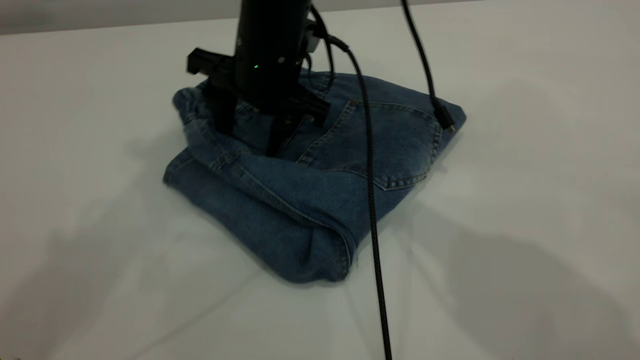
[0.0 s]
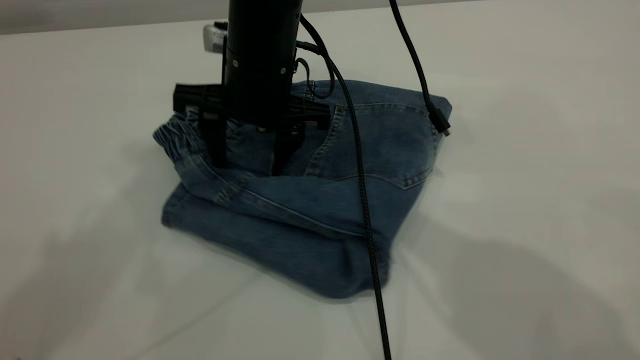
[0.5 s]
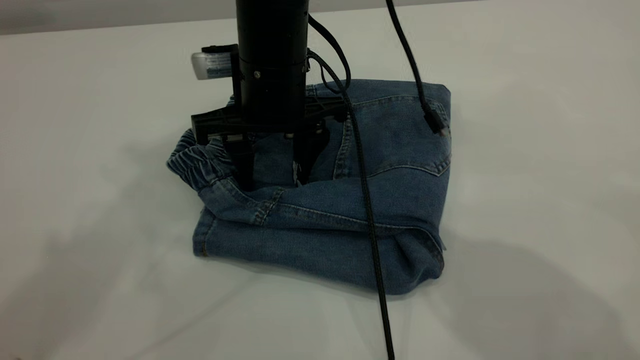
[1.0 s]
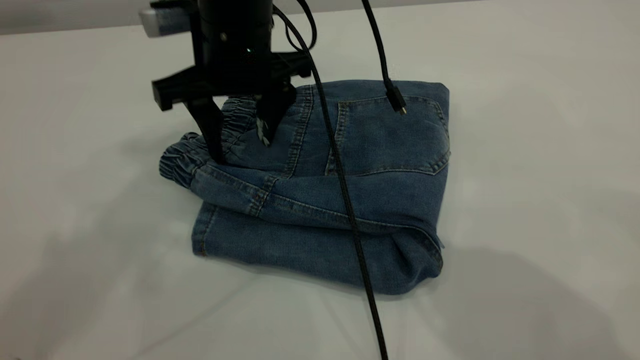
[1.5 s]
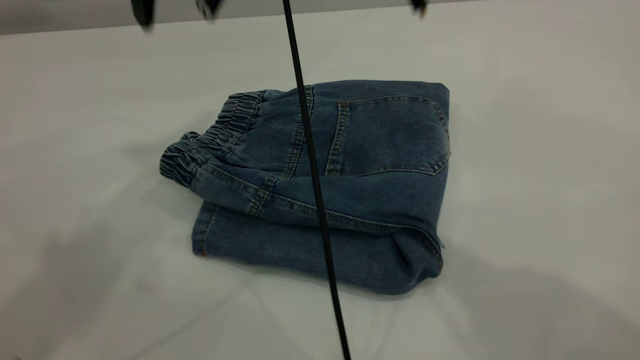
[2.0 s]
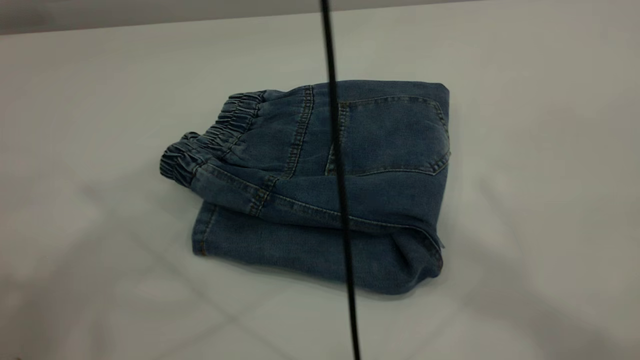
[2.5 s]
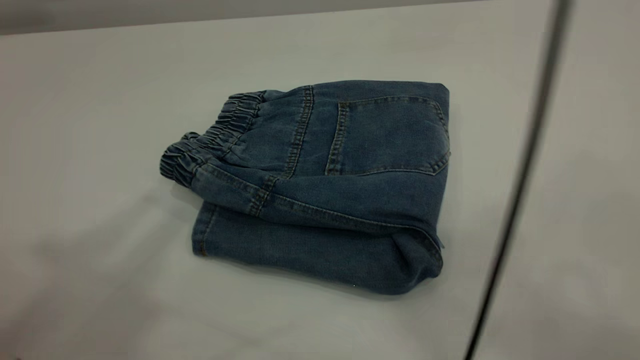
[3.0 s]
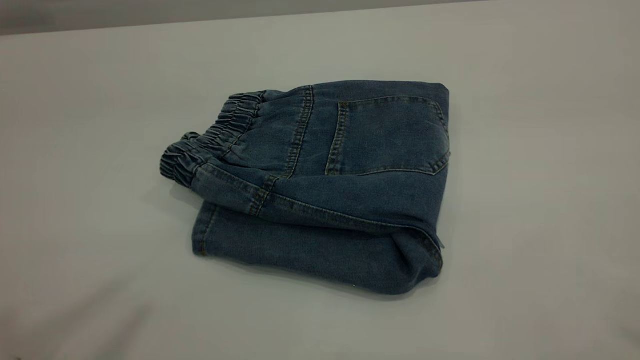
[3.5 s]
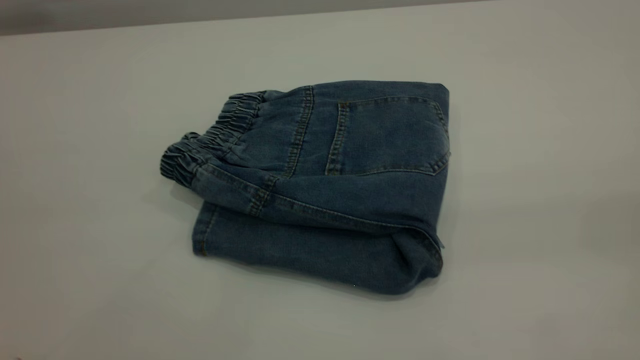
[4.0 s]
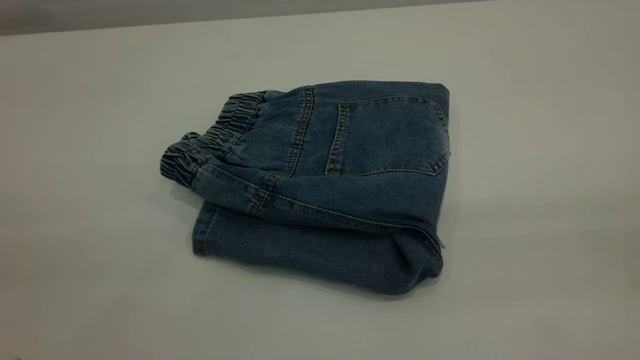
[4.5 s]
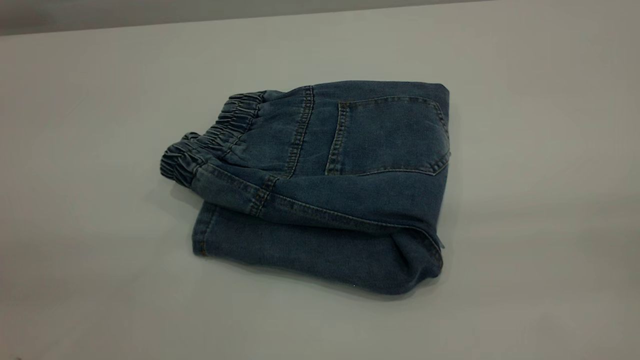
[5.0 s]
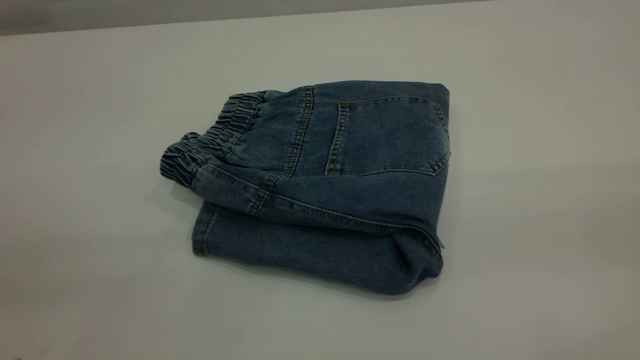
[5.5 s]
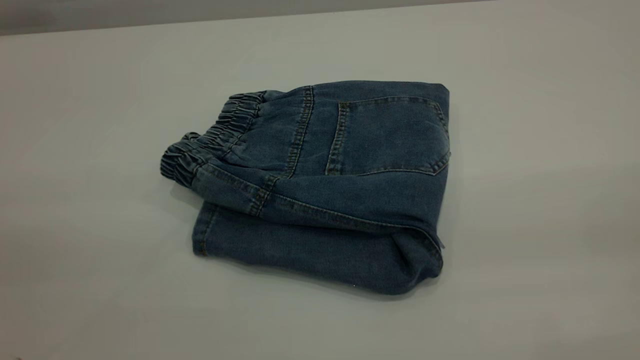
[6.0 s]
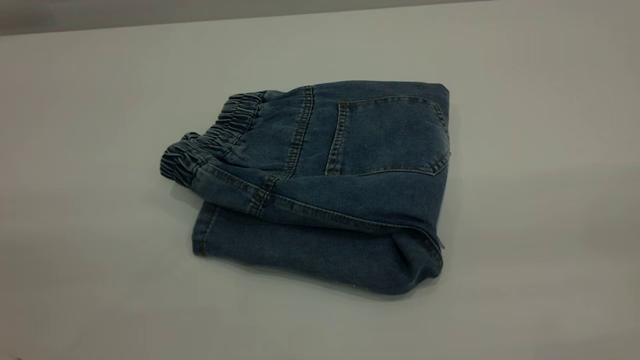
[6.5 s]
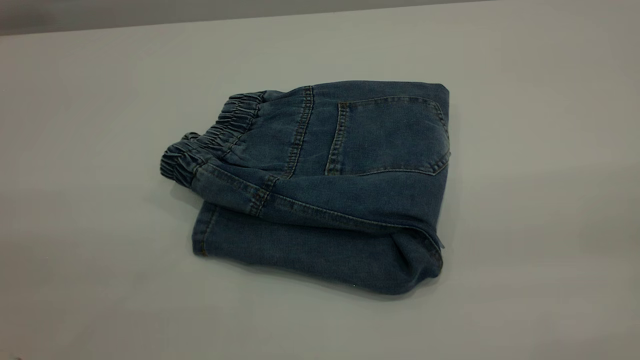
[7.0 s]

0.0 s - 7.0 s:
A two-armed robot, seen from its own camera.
0.0 s - 2.0 s: The right gripper moves upward, approximately 20 cm.
2.0 s - 3.5 s: The right gripper goes about 50 cm to the right, backward and upward. The left gripper heads backward, covering approximately 20 cm.

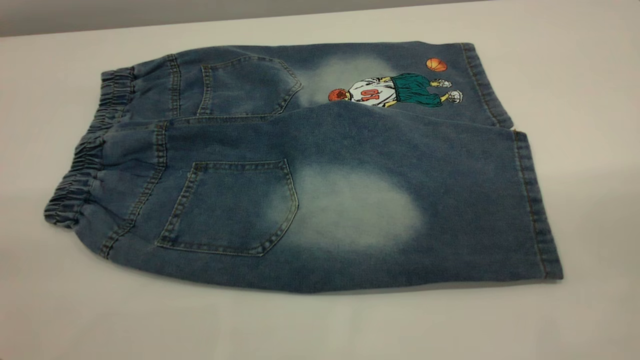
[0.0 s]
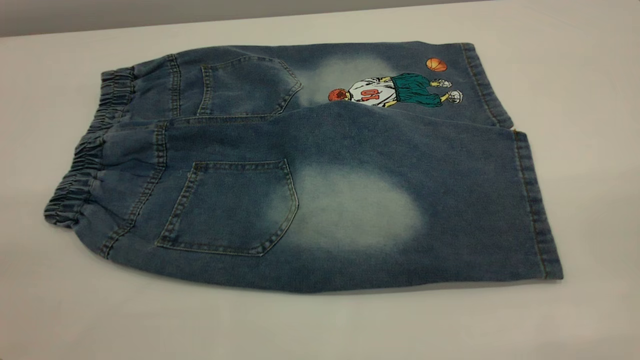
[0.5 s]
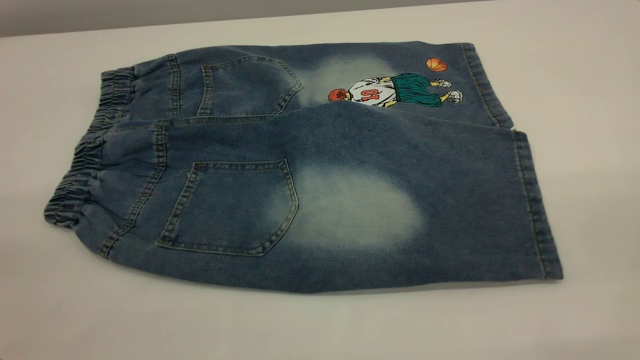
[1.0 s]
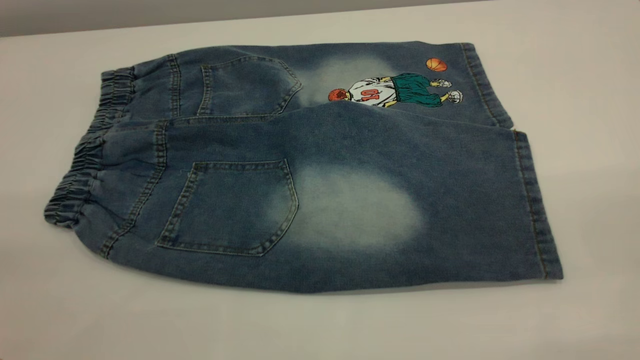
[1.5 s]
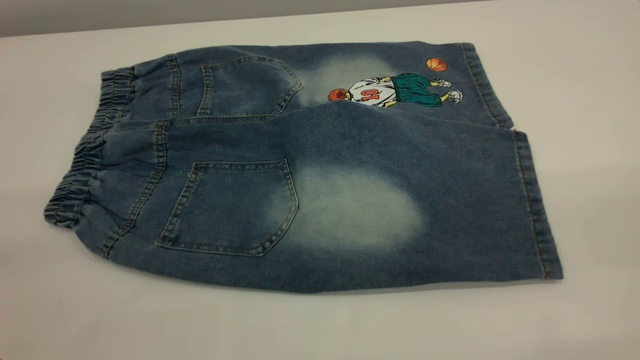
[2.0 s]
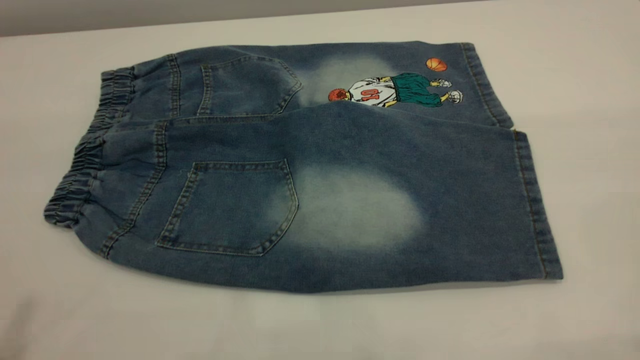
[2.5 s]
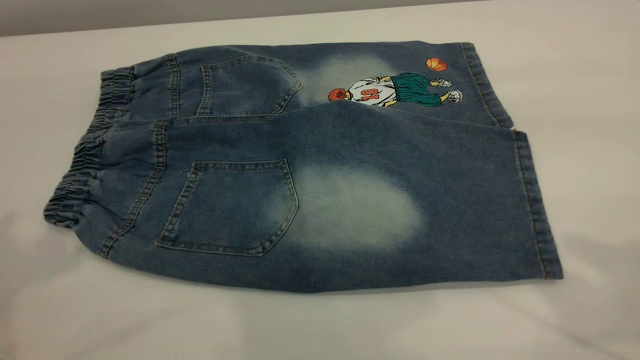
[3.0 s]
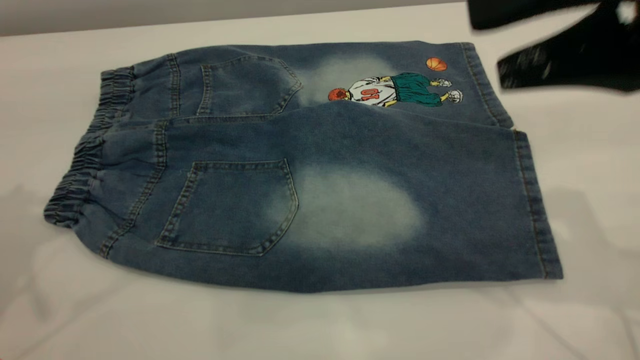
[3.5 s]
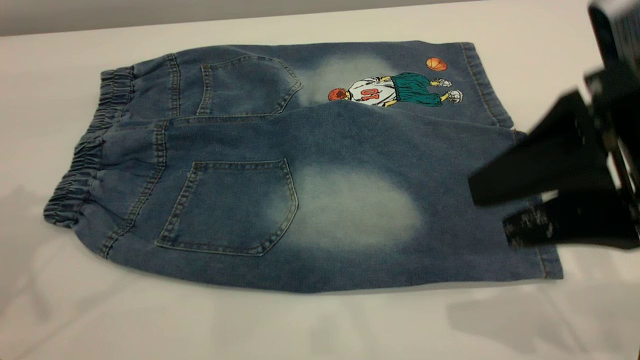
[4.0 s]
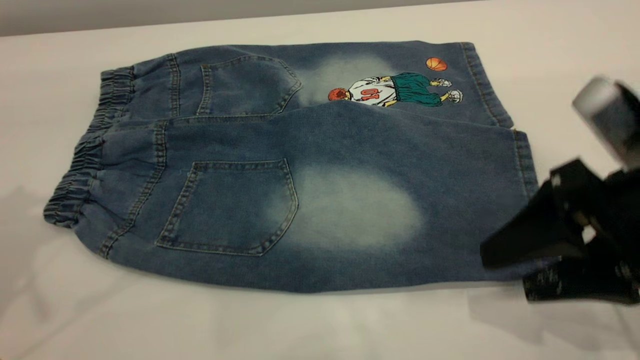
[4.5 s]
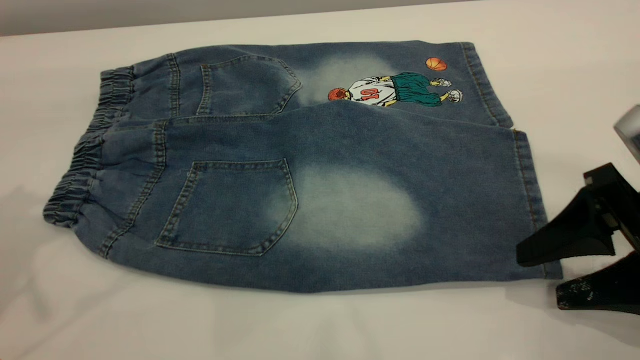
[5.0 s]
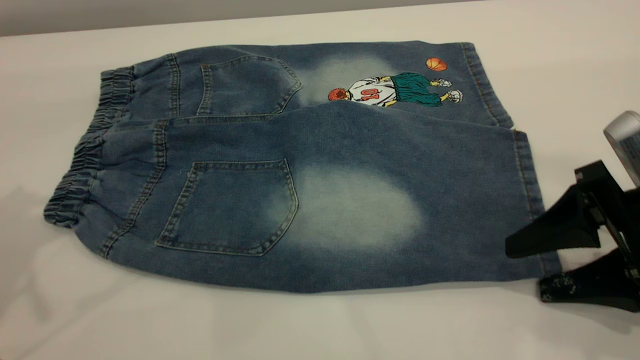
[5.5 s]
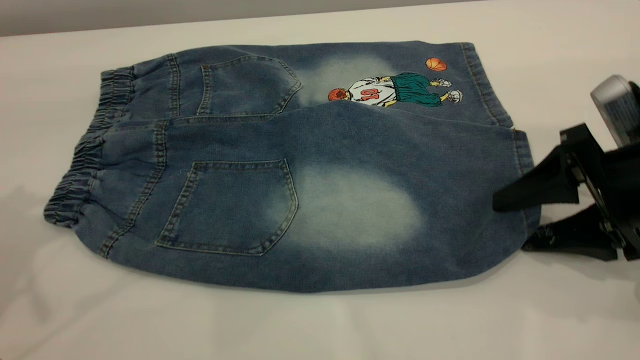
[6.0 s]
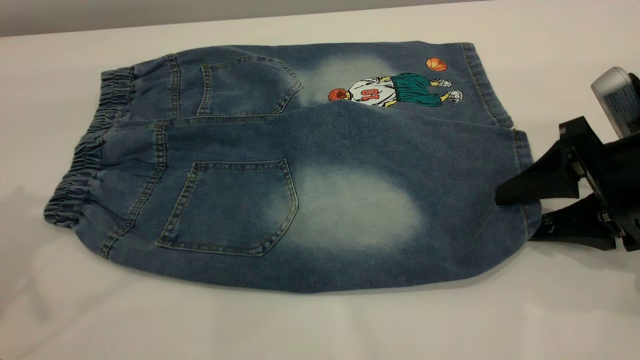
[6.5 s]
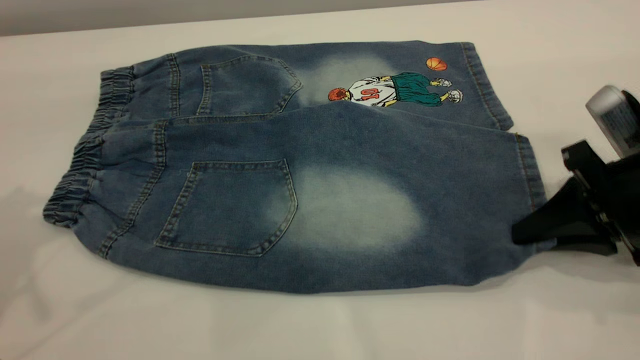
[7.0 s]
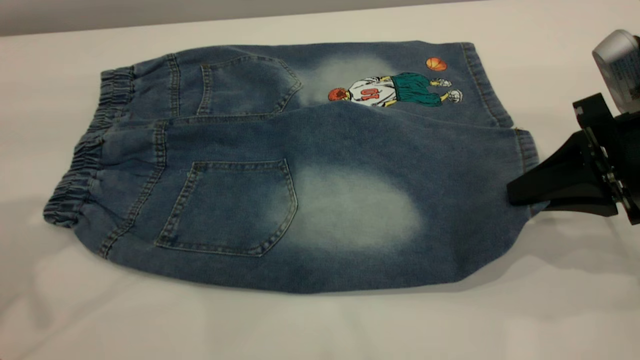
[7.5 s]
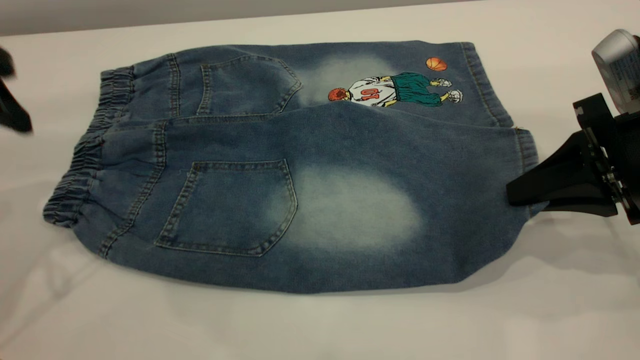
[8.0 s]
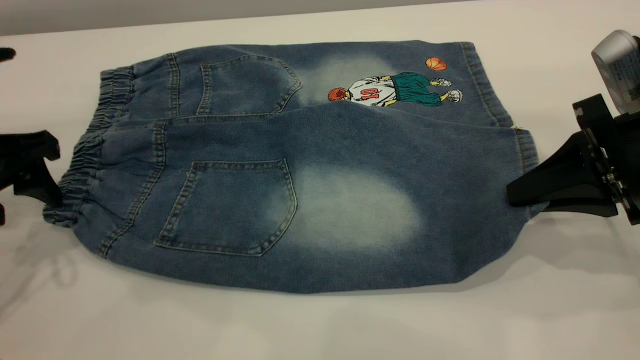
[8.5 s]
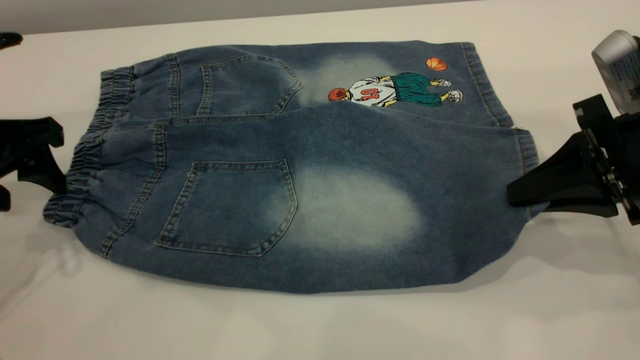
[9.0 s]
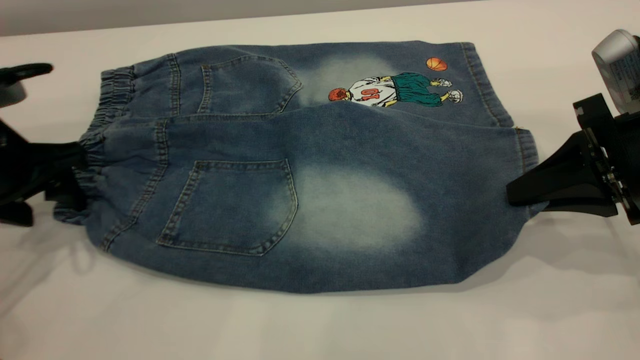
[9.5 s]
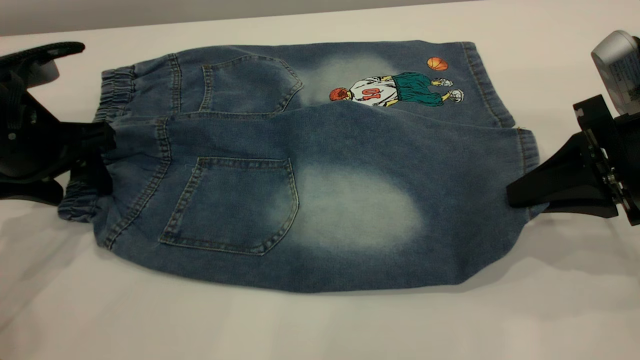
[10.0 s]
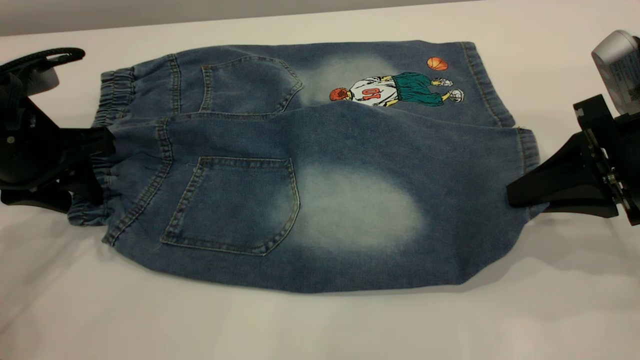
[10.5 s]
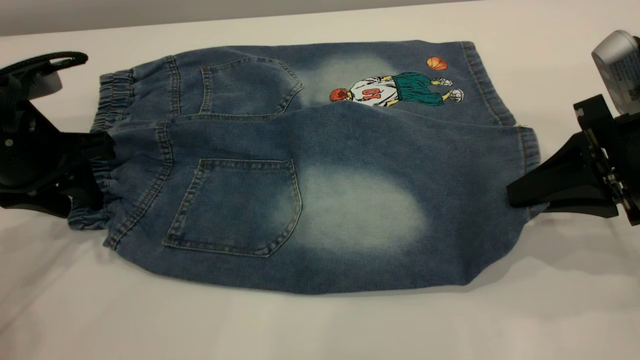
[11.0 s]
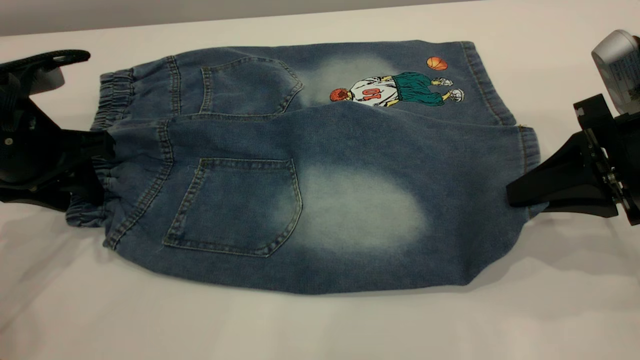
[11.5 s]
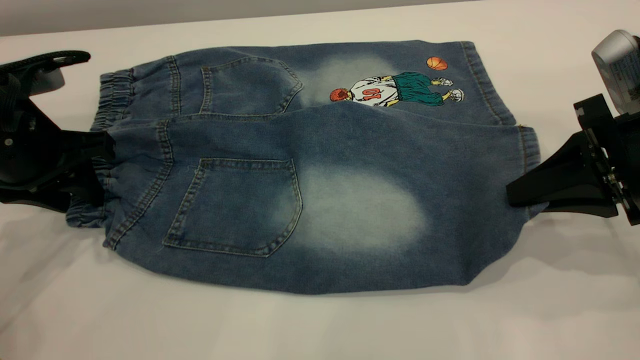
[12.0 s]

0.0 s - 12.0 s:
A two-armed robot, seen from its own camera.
2.0 s - 4.0 s: The right gripper shifts approximately 25 cm forward and downward.
4.0 s - 6.0 s: The right gripper heads downward, forward and to the right, covering about 10 cm.
6.0 s - 8.0 s: The right gripper closes up; the left gripper heads downward, covering some 10 cm.
8.0 s - 10.0 s: The left gripper goes about 5 cm downward.
10.0 s - 12.0 s: There are only small adjustments of the grippers.

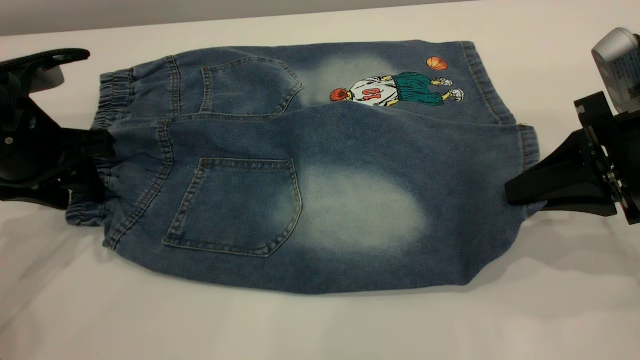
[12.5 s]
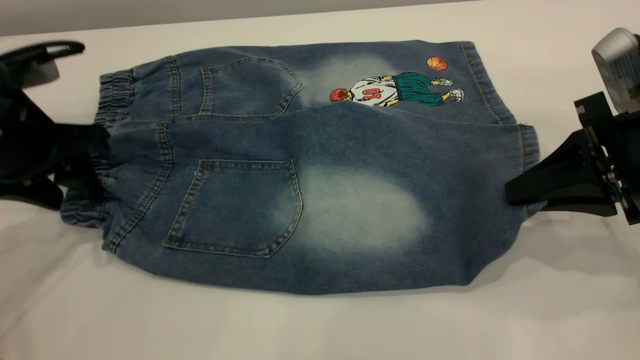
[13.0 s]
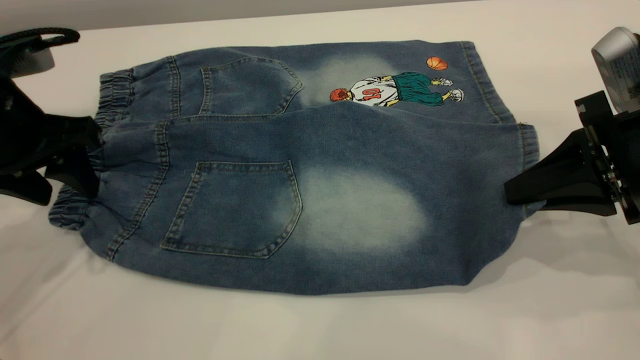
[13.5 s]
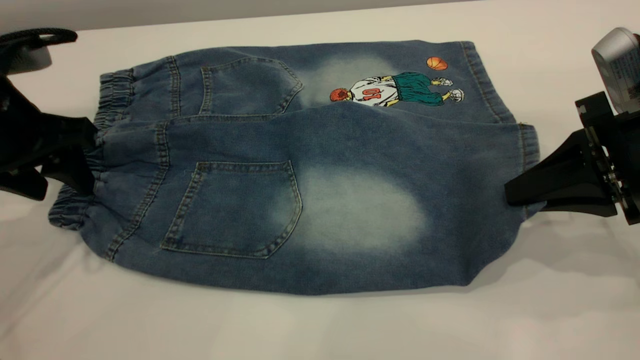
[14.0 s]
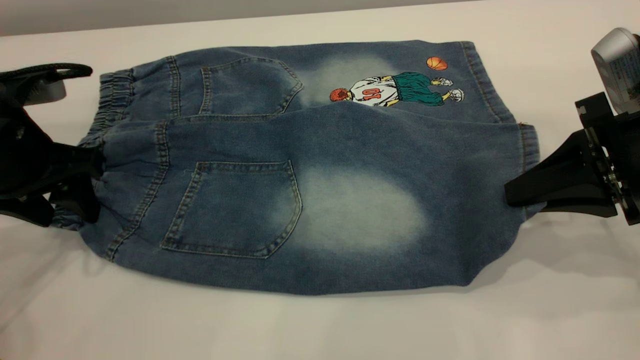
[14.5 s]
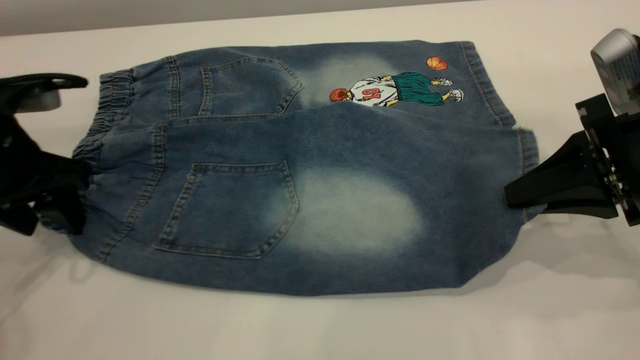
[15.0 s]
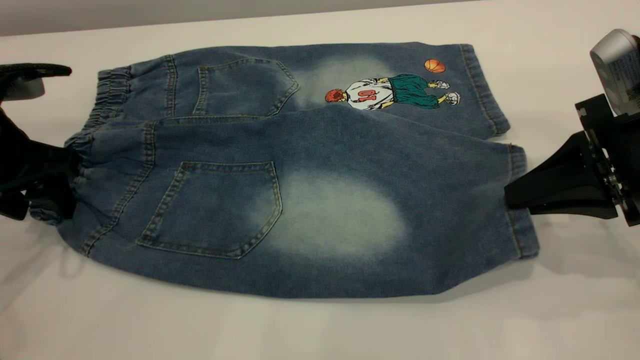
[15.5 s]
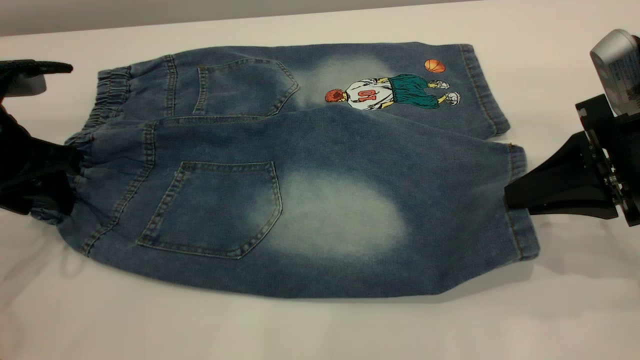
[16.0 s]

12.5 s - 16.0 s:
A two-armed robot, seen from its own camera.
12.5 s - 16.0 s: The grippers make only small movements.
